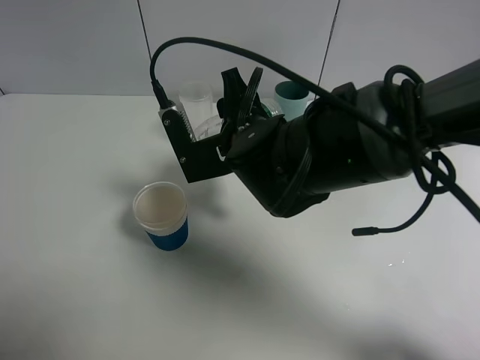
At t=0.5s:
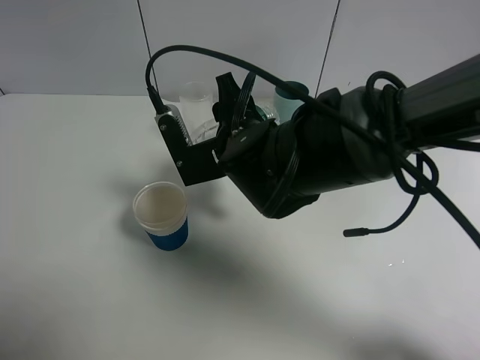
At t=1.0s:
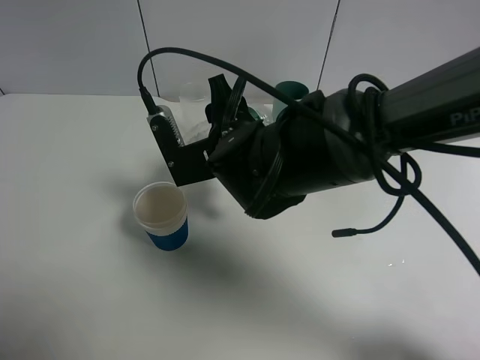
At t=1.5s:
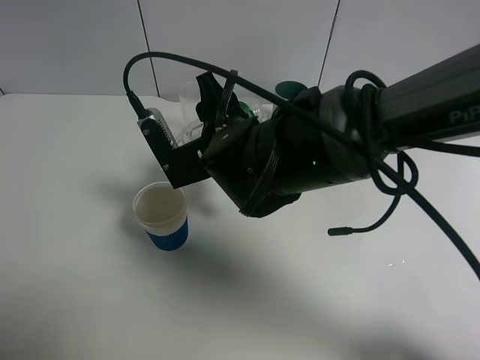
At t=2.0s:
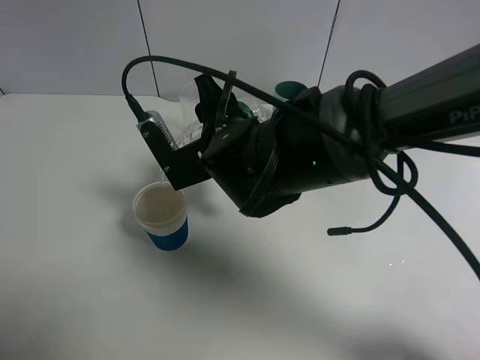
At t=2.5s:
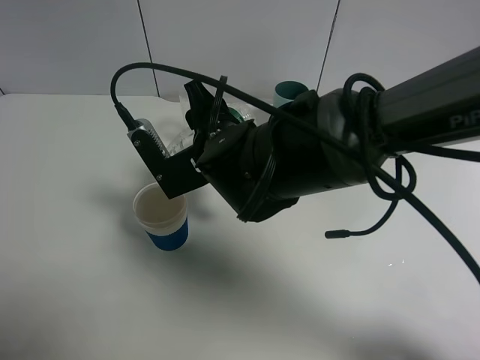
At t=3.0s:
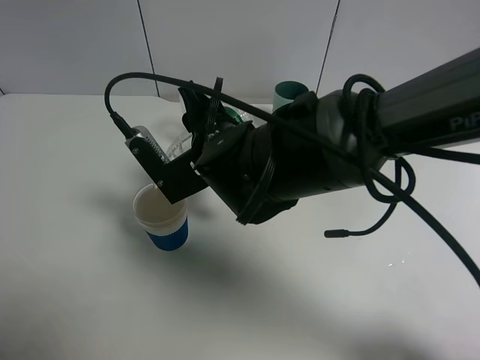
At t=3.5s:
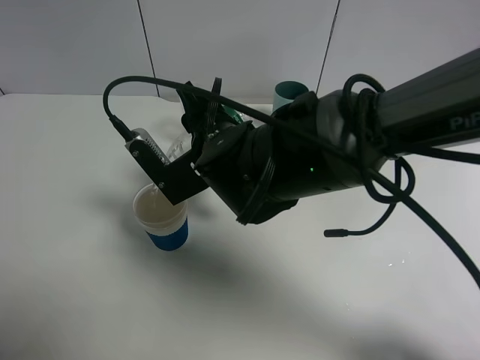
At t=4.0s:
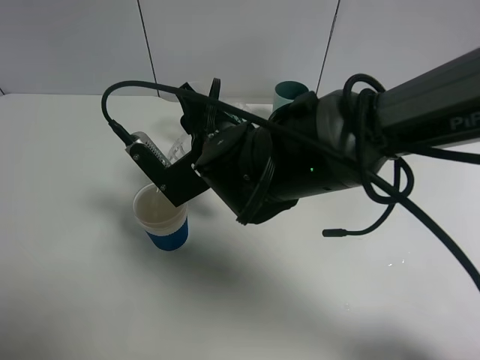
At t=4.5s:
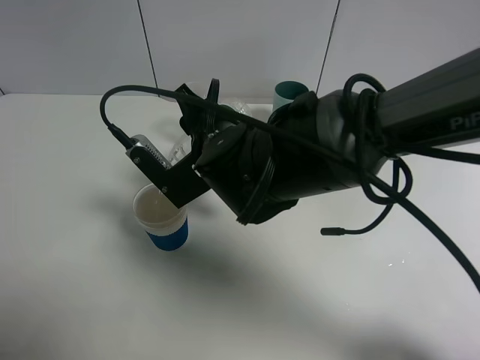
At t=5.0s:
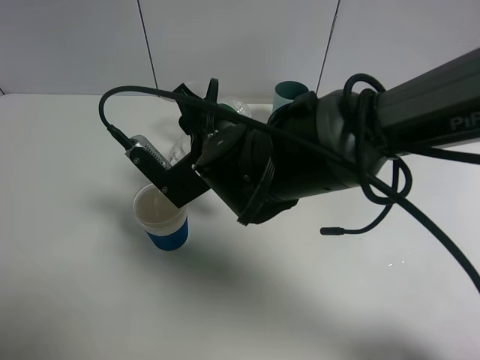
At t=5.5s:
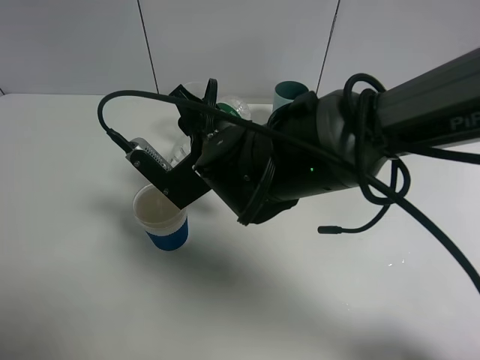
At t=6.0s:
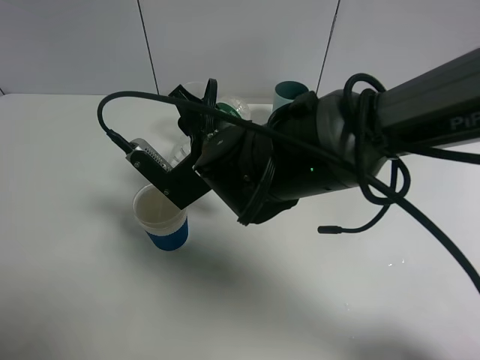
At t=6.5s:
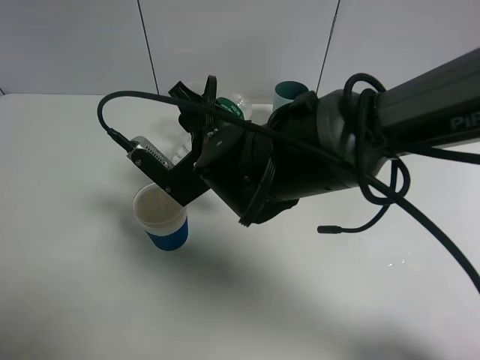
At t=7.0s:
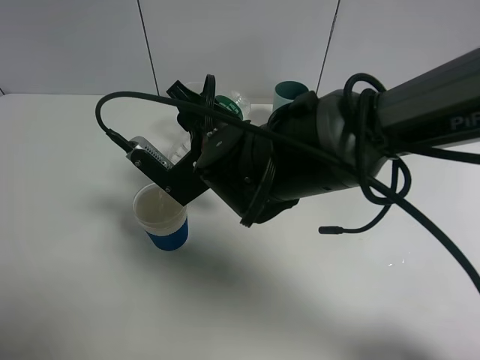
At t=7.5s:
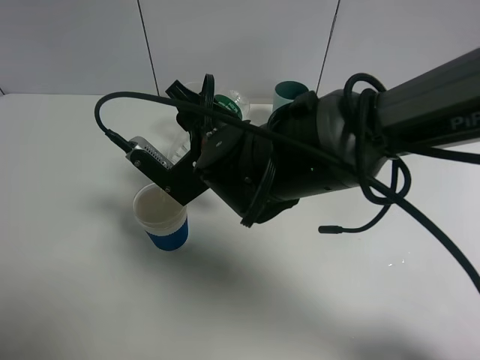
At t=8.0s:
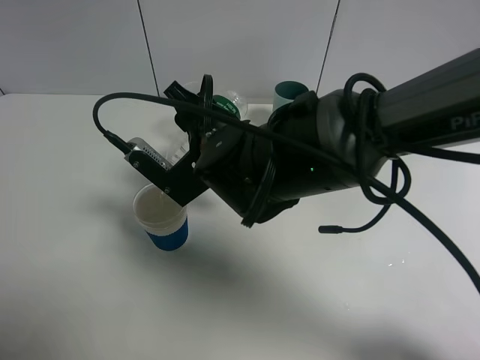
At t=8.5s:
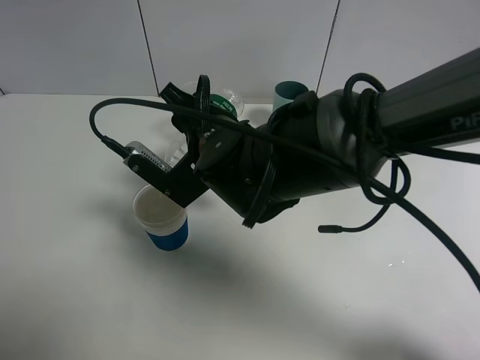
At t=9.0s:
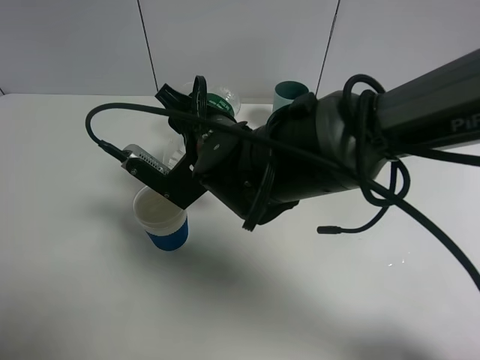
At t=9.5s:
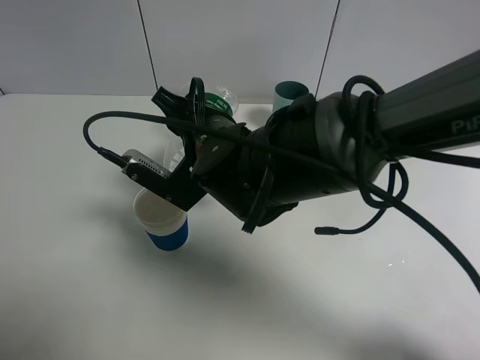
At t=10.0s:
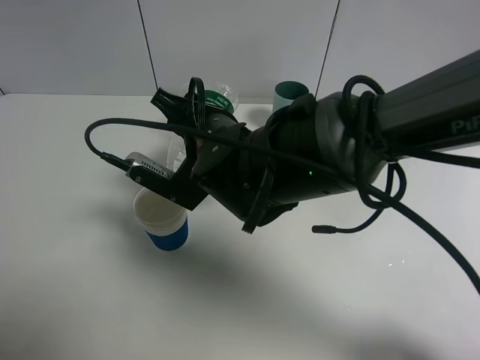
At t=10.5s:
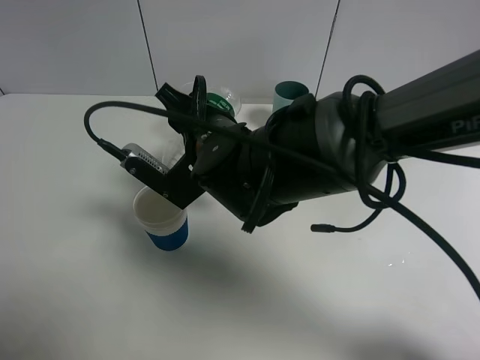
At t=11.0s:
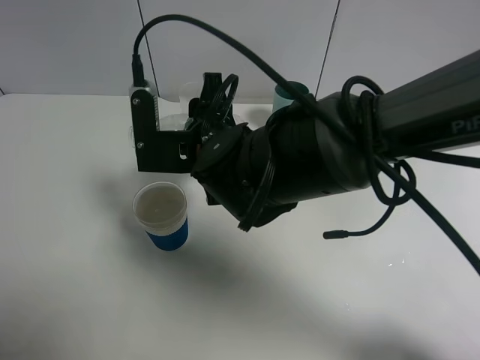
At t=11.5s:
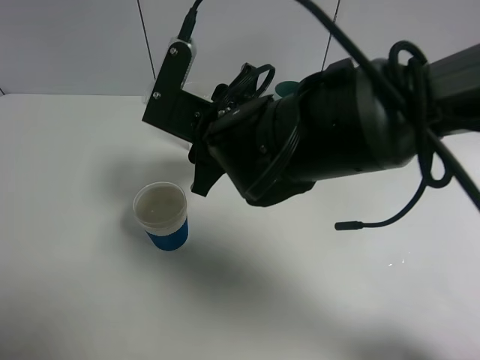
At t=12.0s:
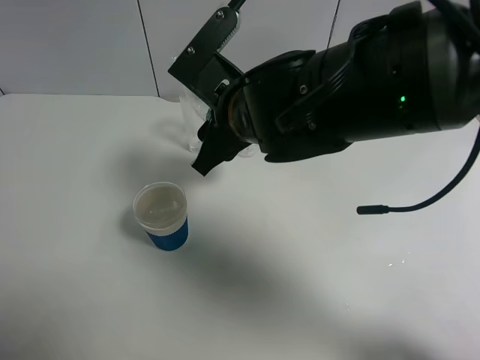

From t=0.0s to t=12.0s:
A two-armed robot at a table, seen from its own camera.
Task of the whole recording: use a gripper to hold the bottle of the drink and pour it into a random cup.
Step, from t=0.0s to t=11.0s: Pour the mineral water into the paper cup with the right gripper.
From t=0.0s to t=4.0s: The grippers stay close to where they were, moving slightly.
From t=4.0s to t=6.0s: There are only small adjustments of the grippers.
From t=6.0s to t=8.0s: The two grippers keep their place.
From t=8.0s to t=10.0s: There are only small adjustments of the grippers.
From t=10.0s to t=12.0s: The right gripper shifts by roughly 5 cm.

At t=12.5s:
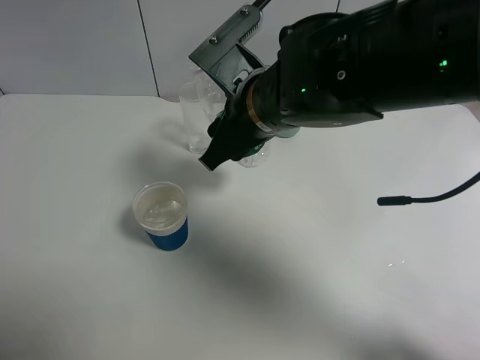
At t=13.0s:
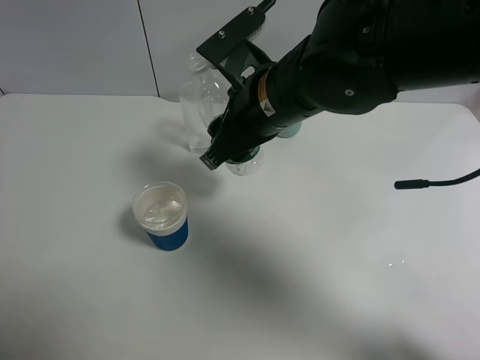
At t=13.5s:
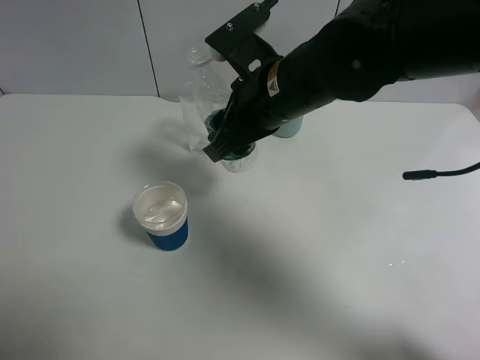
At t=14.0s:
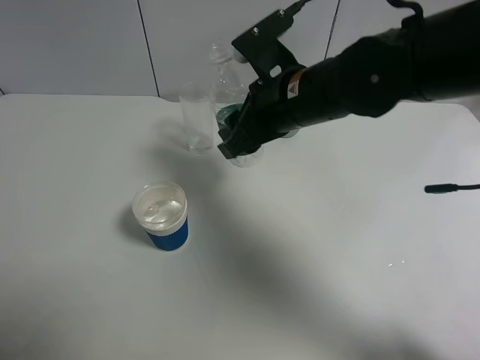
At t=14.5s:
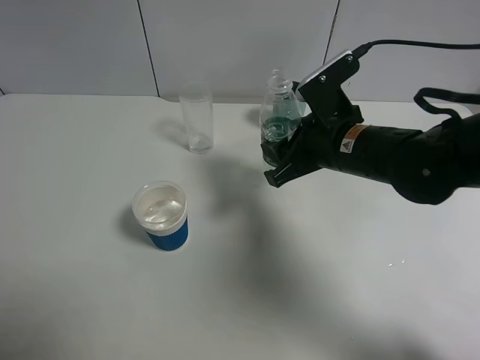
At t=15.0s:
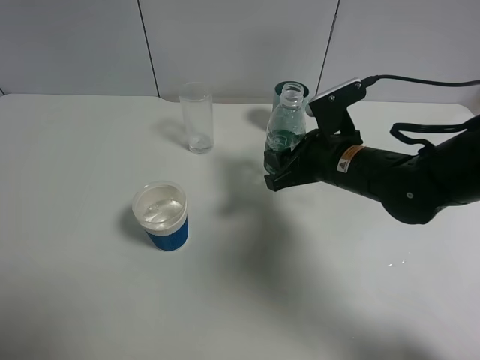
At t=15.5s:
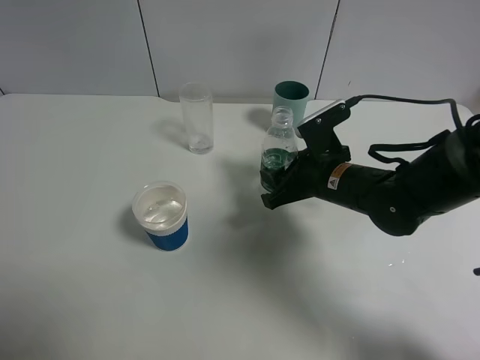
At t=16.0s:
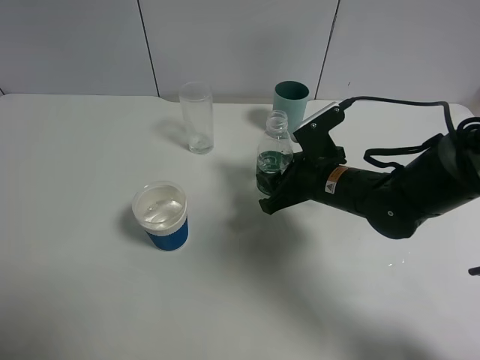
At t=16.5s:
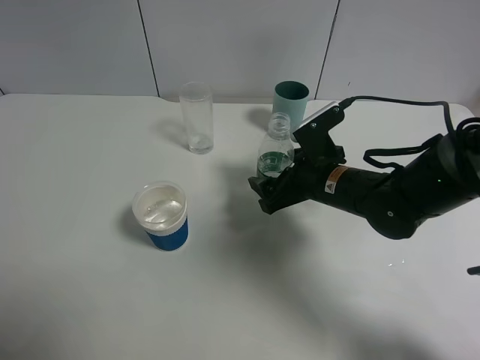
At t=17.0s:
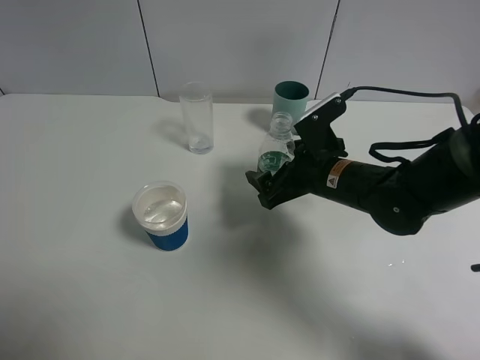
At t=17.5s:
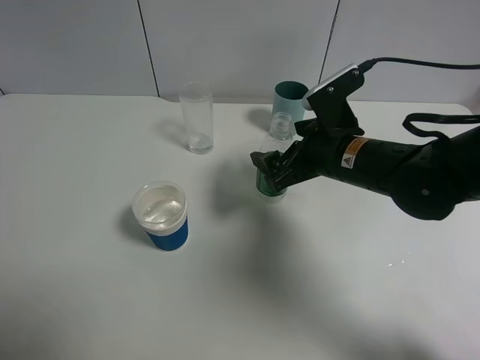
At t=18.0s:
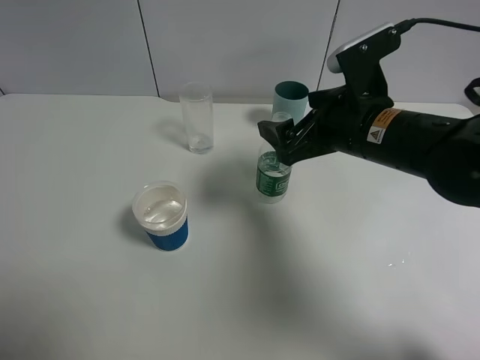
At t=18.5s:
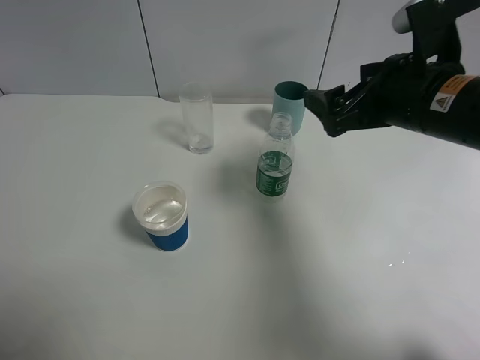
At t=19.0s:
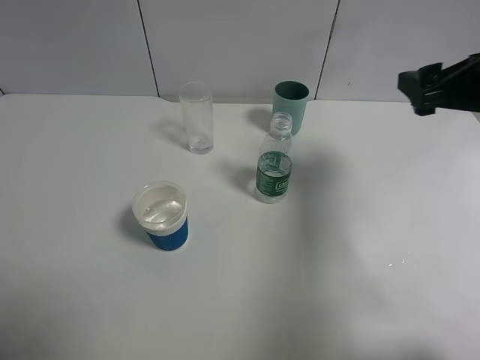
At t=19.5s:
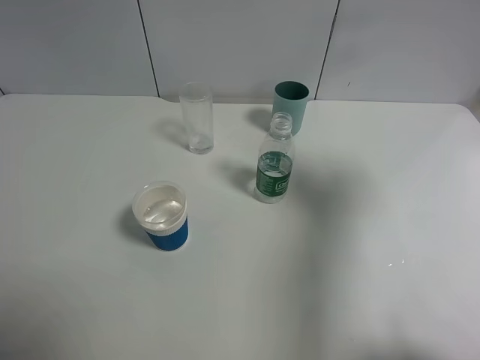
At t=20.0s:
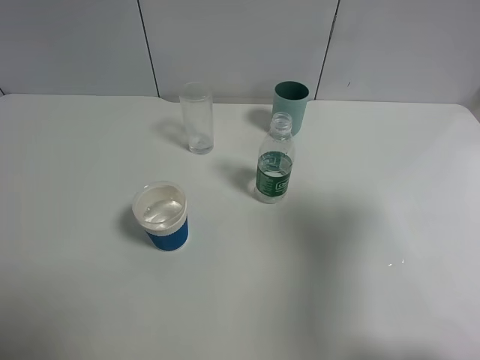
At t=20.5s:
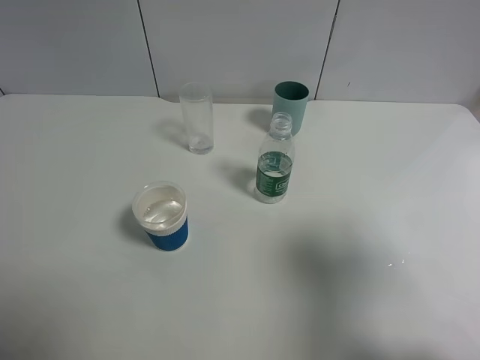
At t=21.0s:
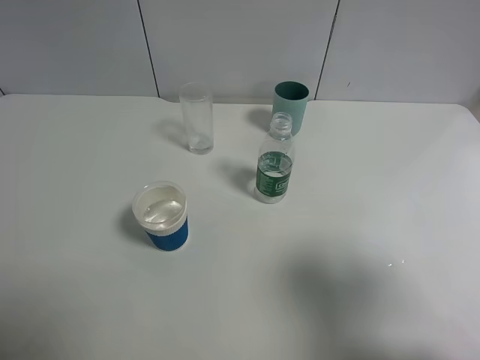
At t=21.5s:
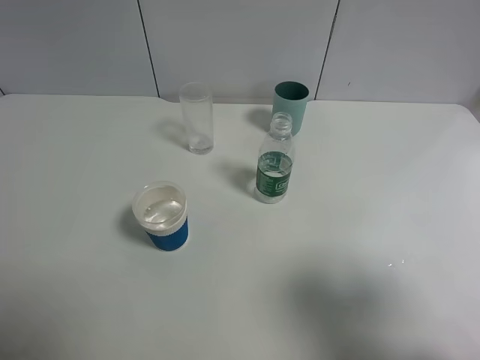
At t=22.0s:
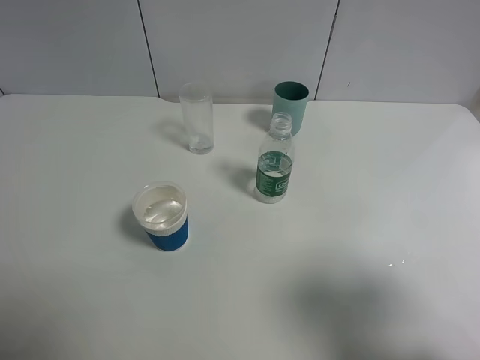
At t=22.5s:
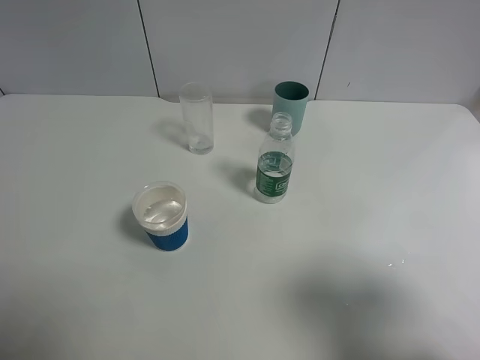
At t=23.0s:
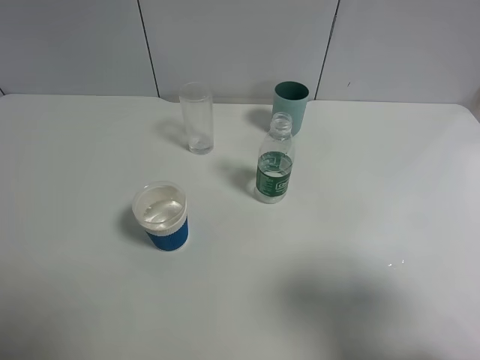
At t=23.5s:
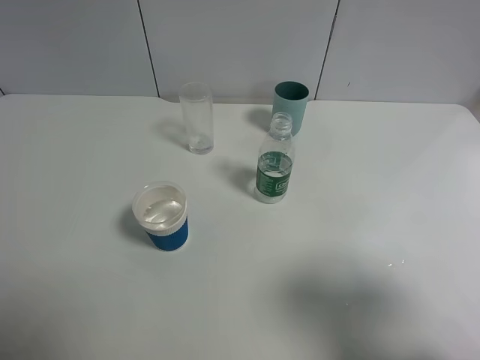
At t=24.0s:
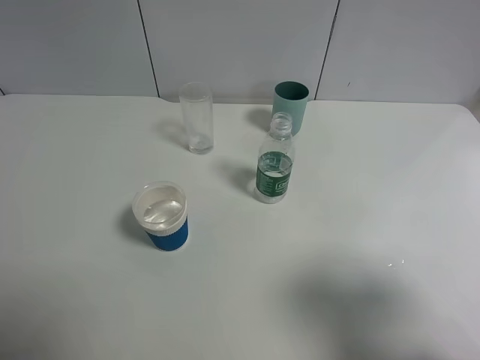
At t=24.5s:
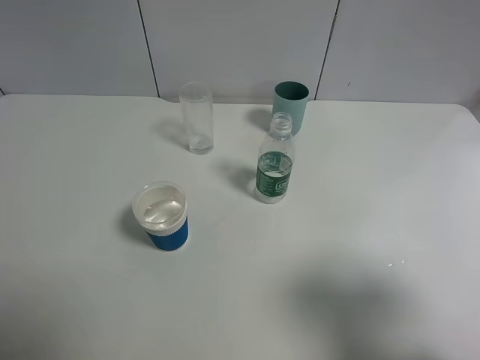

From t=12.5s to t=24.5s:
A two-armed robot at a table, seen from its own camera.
Task of the whole recording: use a gripper to hold the bottle of the drink and pour it into a random cup.
Step, from t=12.5s to t=17.0s: Place the mineral water bottle on the table with the right gripper.
From t=12.5s to t=14.5s: The right gripper moves to the right and downward, approximately 10 cm.
From t=14.5s to t=16.5s: The right gripper goes approximately 5 cm downward, and opens its fingers.
From t=16.5s to t=18.5s: The right gripper moves upward and to the right, roughly 15 cm.
From t=18.5s to t=20.5s: The right gripper goes roughly 20 cm backward and to the right.
From t=20.5s to t=22.5s: The right gripper changes place by some 5 cm.
From t=22.5s to t=24.5s: The two grippers keep their place.

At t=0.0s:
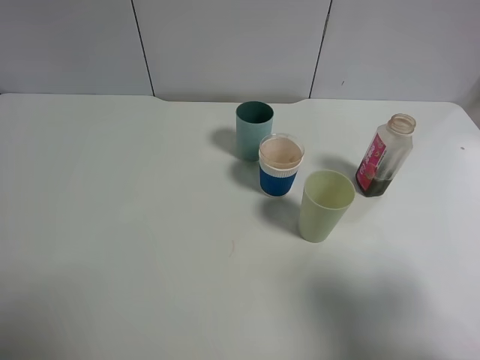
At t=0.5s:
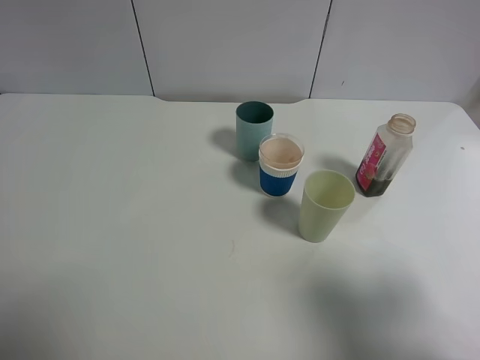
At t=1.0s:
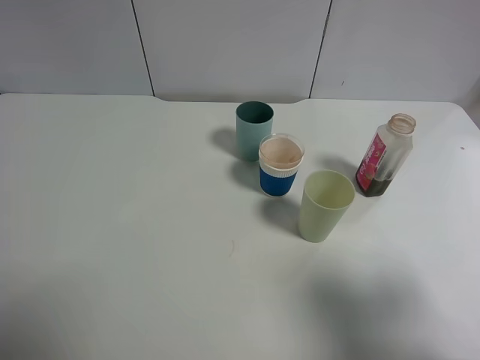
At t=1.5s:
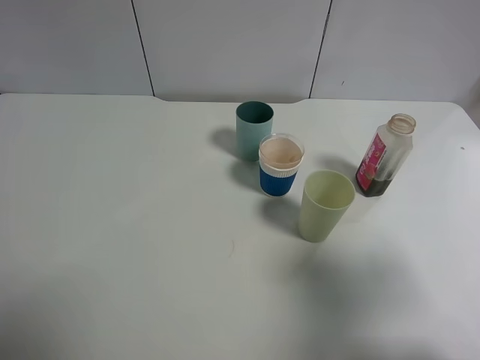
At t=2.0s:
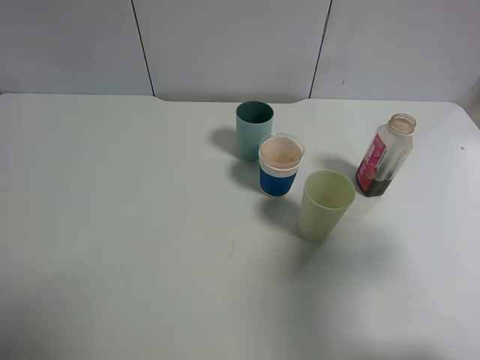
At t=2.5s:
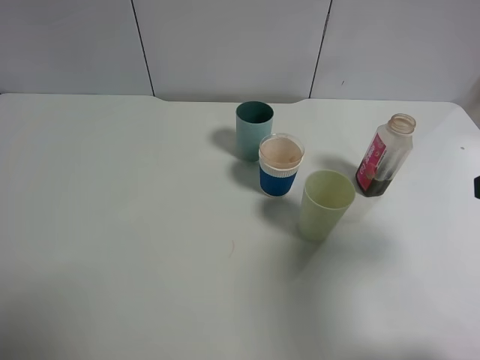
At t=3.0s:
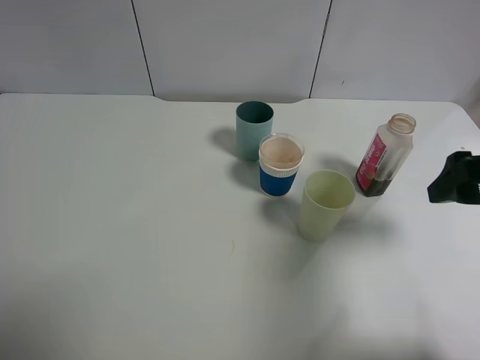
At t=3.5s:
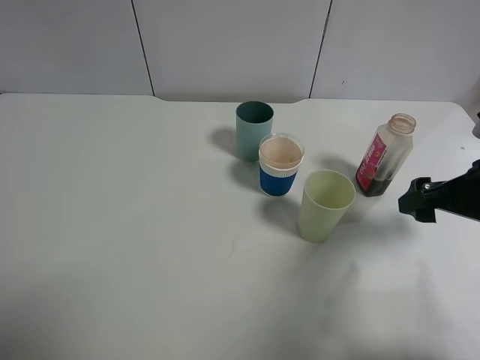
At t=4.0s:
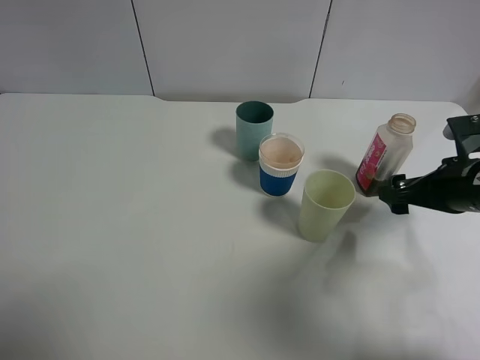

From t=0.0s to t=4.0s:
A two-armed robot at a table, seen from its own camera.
Task of the whole recording: use a gripper to hold the bottle of the drink and pour it into a random cup.
From t=0.0s to t=2.0s: The right gripper goes about 10 cm forward.
From t=2.0s to t=4.0s: The right gripper heads downward and forward, covering approximately 20 cm.
